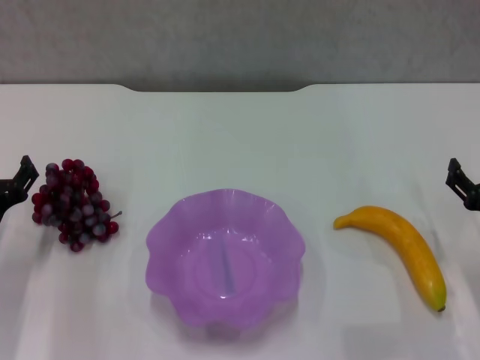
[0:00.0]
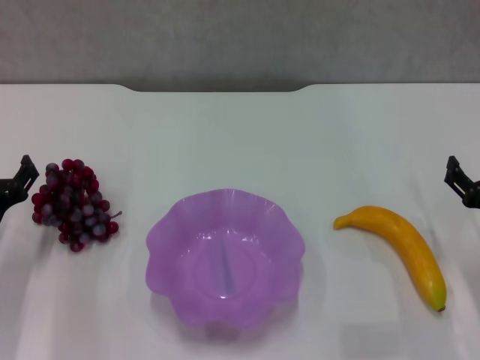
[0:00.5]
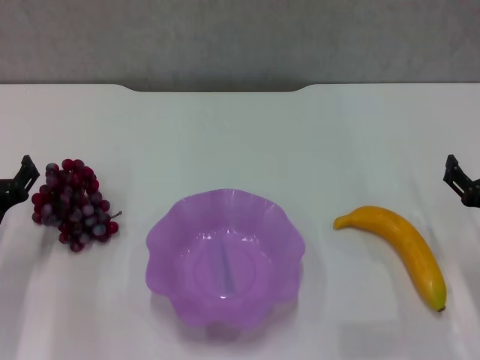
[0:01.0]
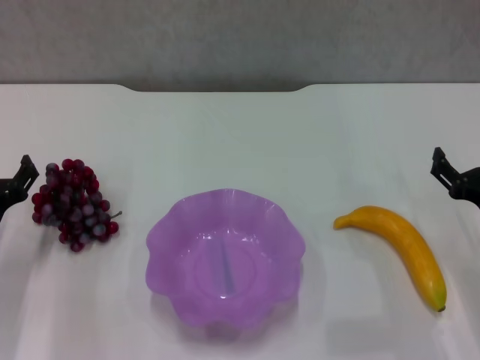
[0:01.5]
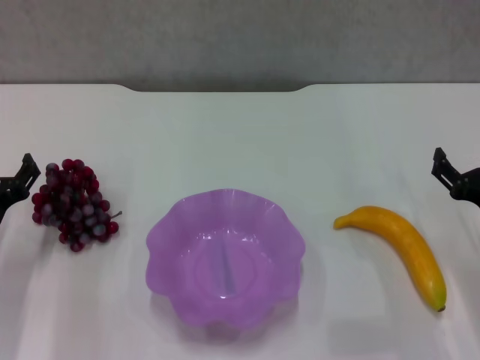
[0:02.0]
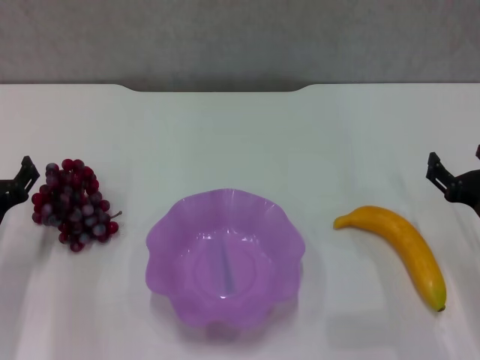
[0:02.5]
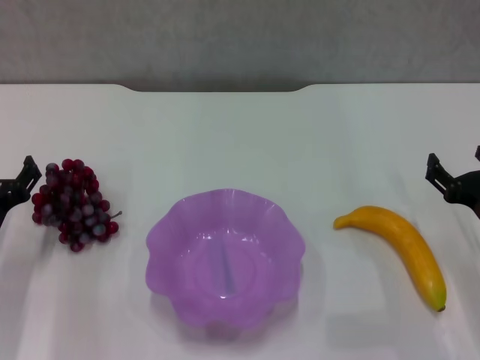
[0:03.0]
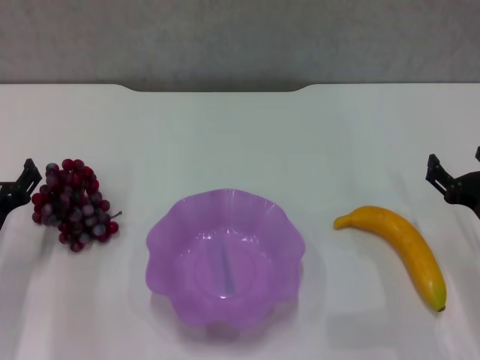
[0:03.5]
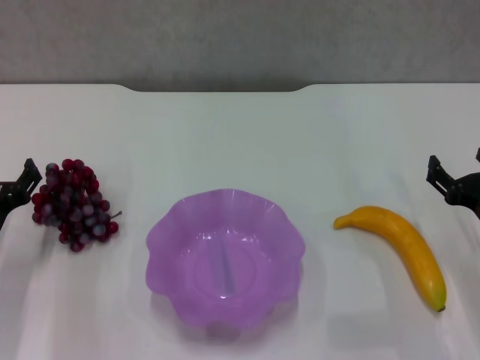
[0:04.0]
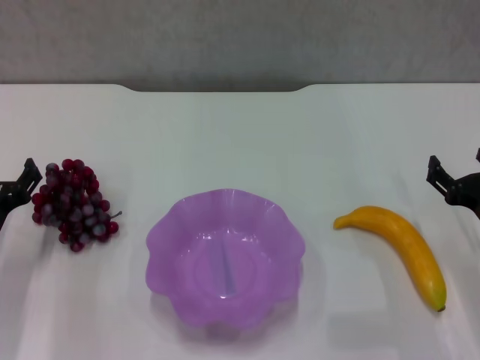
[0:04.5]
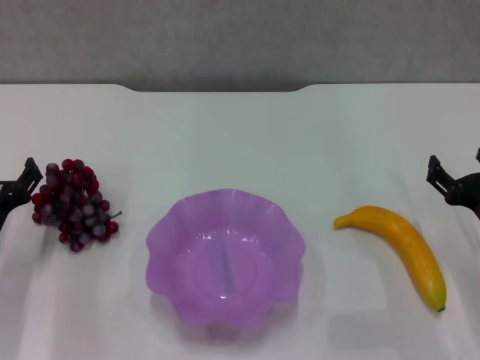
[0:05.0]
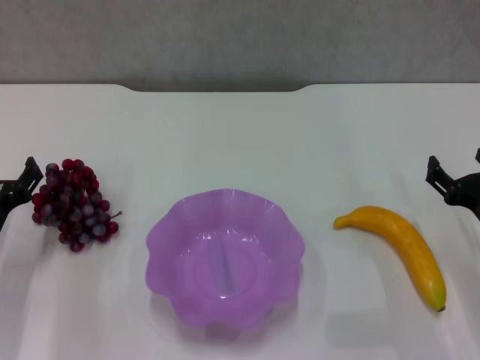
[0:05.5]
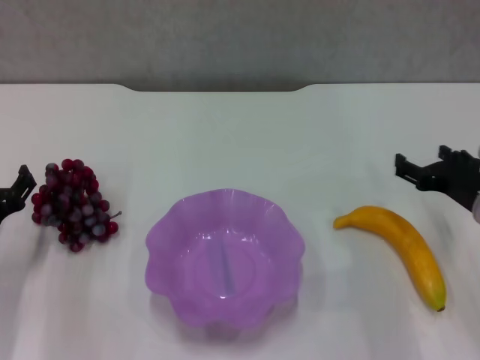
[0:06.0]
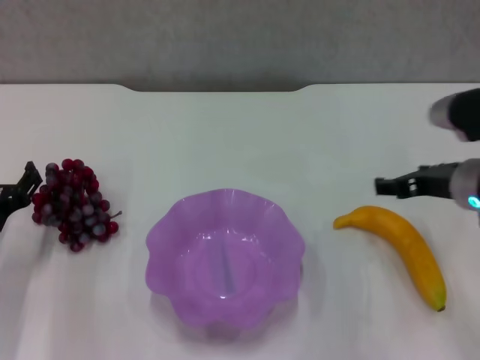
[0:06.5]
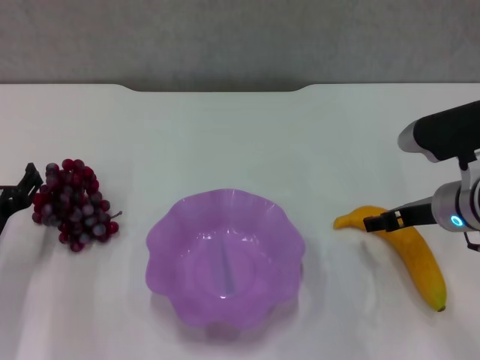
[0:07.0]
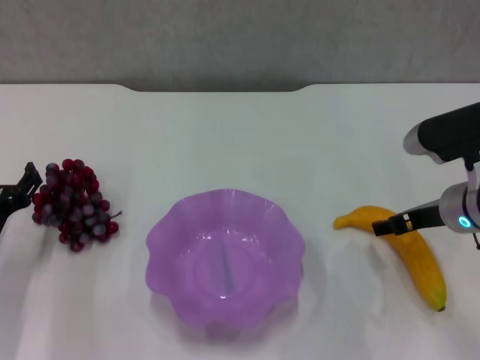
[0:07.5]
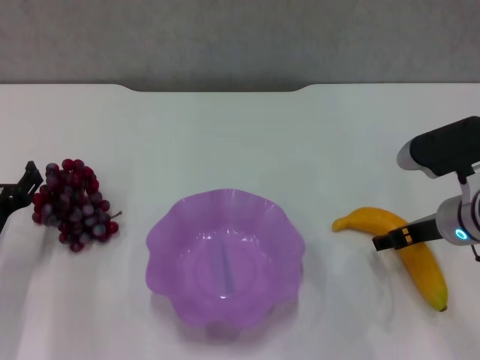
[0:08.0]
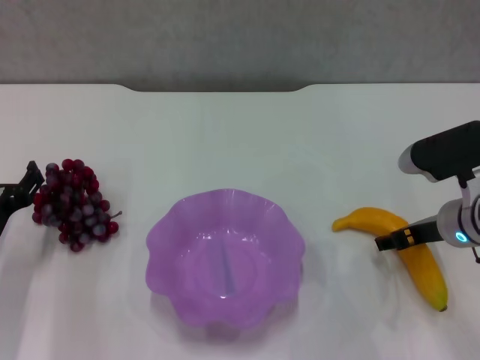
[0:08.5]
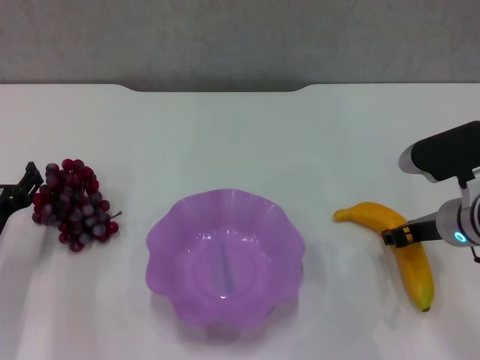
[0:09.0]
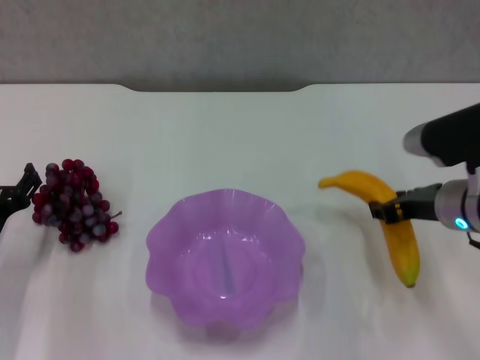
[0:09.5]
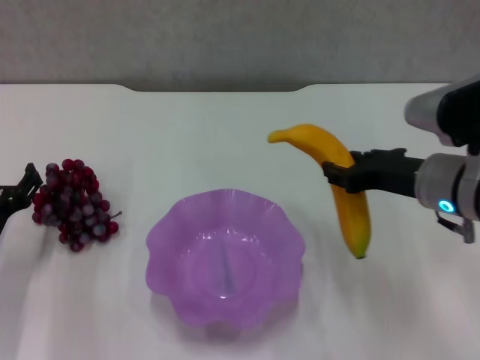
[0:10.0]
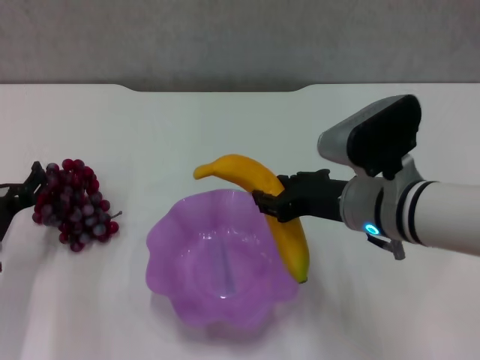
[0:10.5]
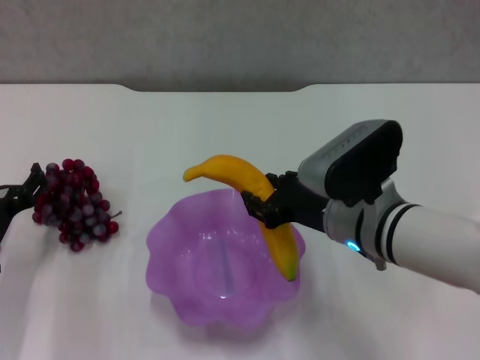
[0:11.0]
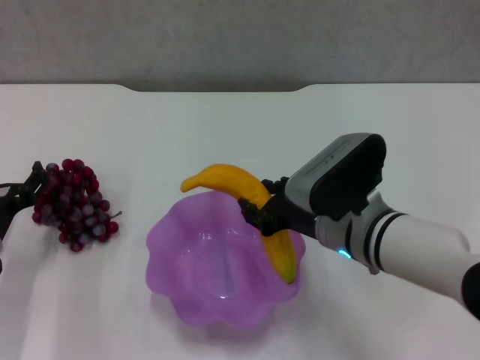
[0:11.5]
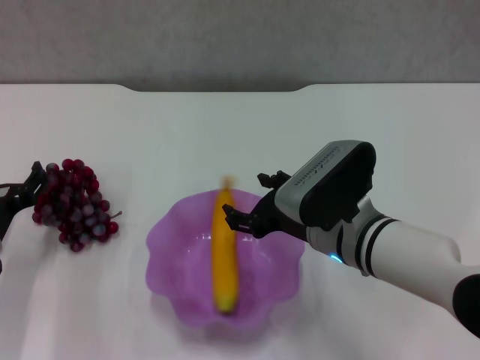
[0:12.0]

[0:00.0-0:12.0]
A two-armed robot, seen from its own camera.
Step, 0:00.0 to 0:09.0: Grasp the banana with right gripper.
Step, 0:09.5 to 0:12.0: Place the banana in the purple plate with right gripper.
0:00.0 to 0:02.0: The grippers make only small movements.
0:02.0 to 0:04.0: Neither gripper changes place.
0:04.0 to 0:06.0: The right gripper ends up some 5 cm from where it was.
0:08.0 to 0:10.0: The right gripper travels upward by roughly 5 cm, and closes.
0:10.0 to 0:12.0: The right gripper heads to the left and downward, covering roughly 10 cm, and opens its fingers.

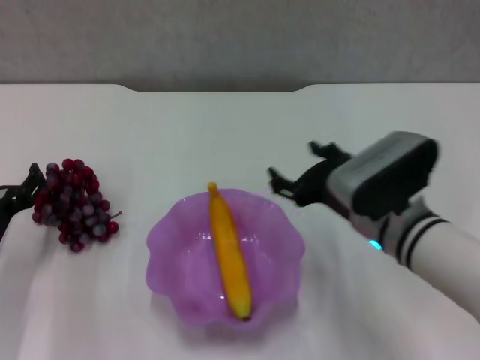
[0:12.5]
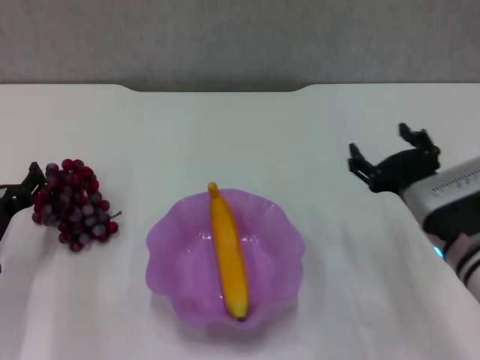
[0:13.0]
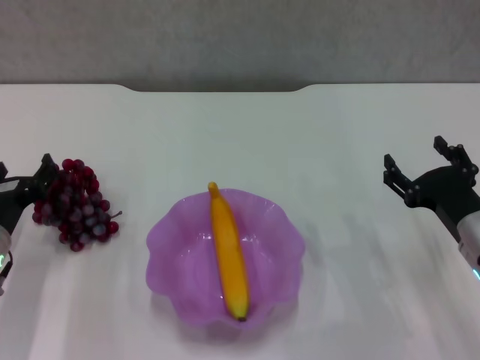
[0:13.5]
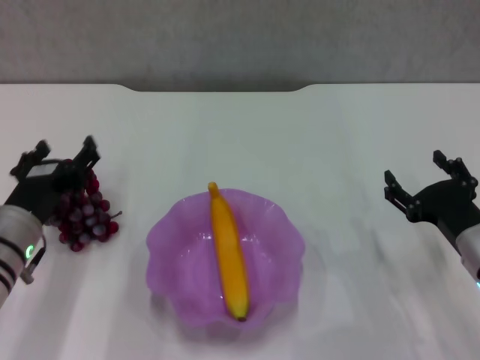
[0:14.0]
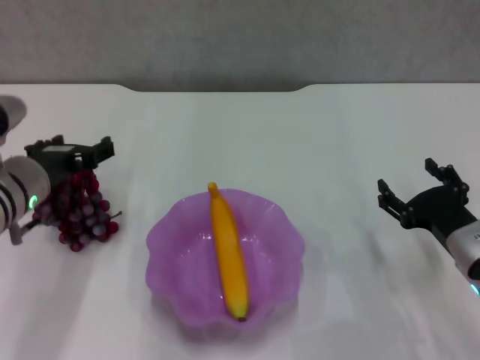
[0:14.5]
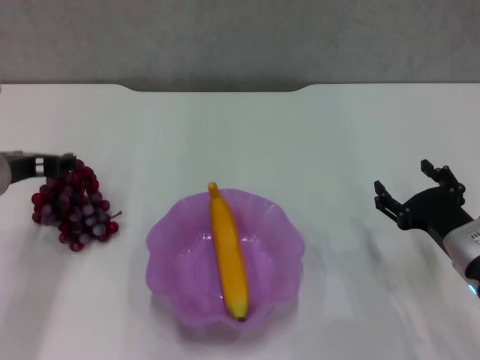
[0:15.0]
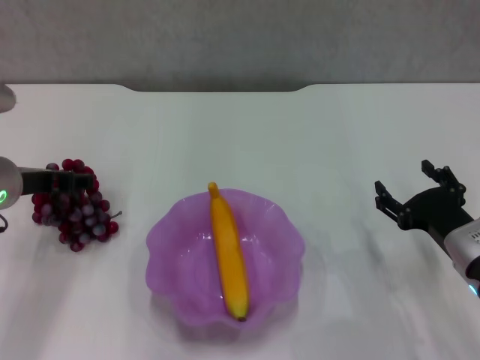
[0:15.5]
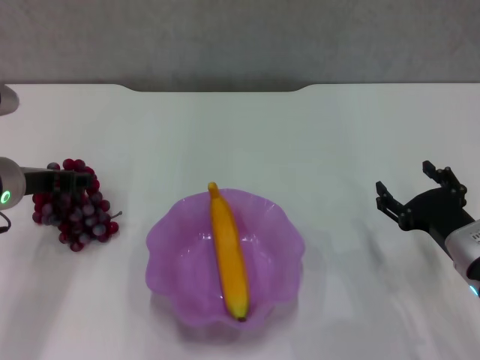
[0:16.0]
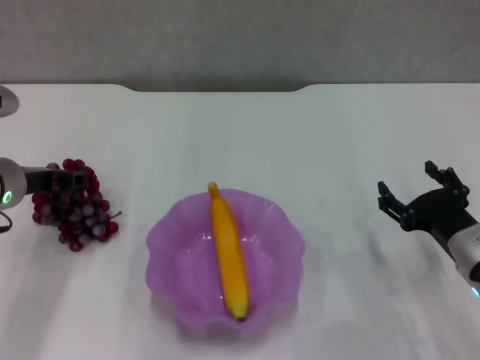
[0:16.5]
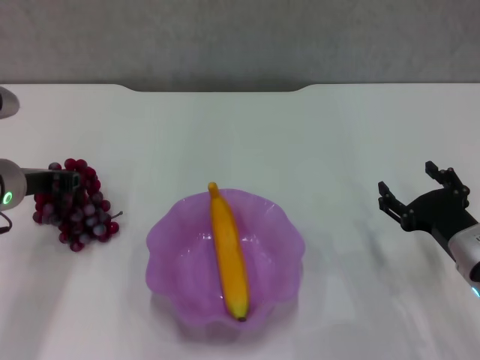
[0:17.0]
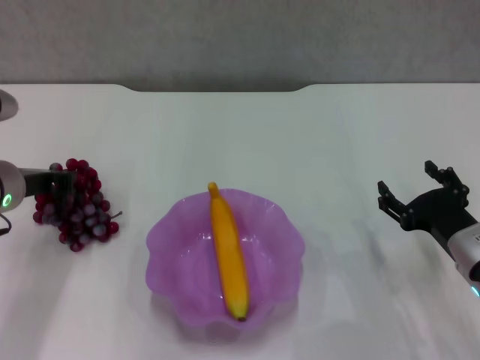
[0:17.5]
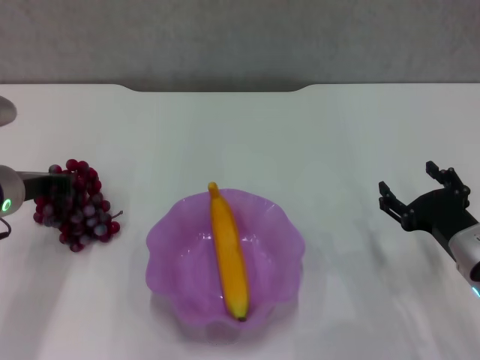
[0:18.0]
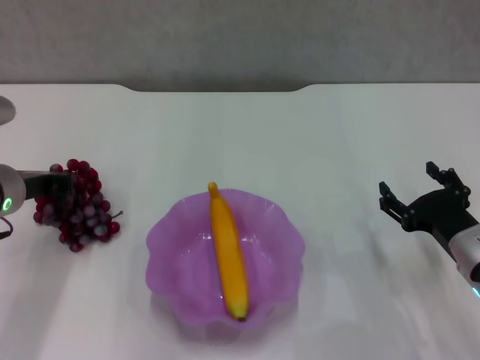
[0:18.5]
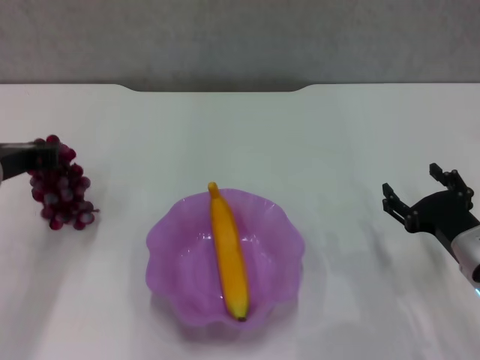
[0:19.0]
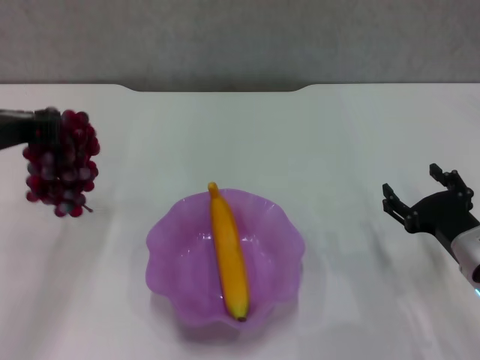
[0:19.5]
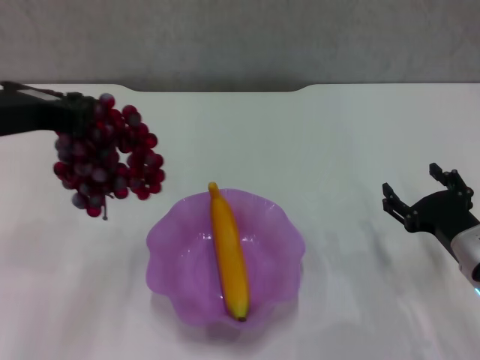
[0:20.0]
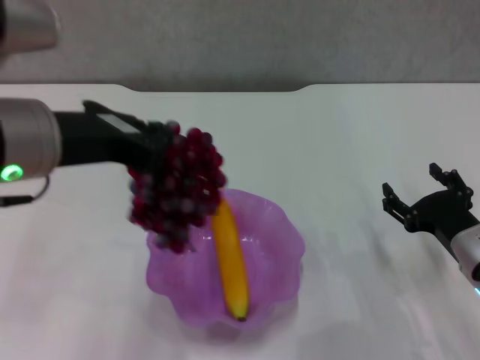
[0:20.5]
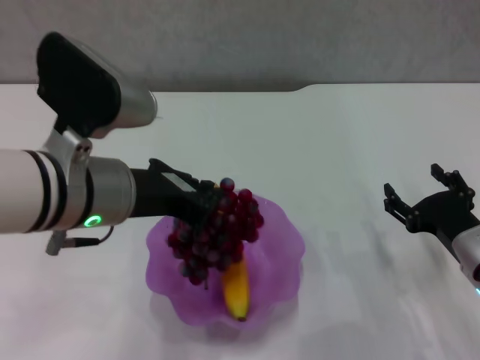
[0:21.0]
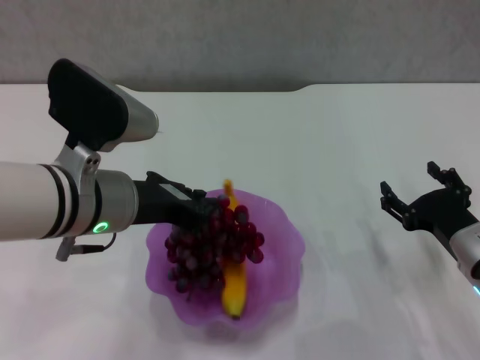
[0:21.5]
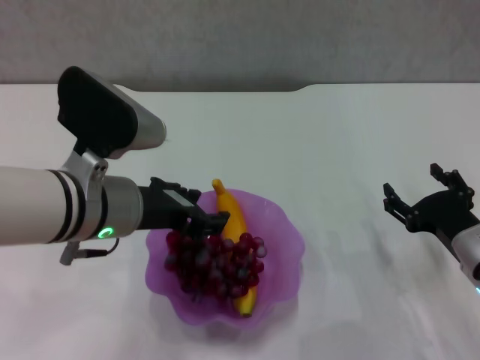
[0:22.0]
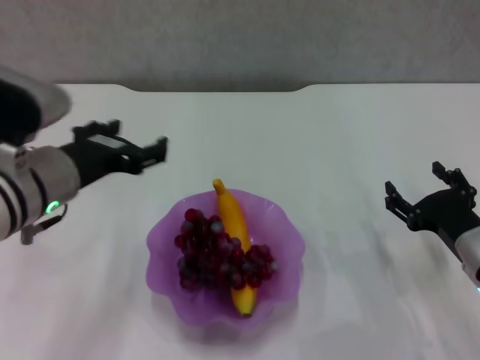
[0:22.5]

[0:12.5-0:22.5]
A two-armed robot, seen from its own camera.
Step, 0:12.5 to 0:18.0: Grasp the grape with left gripper.
Step, 0:18.5 to 0:22.0: Place the grape in the purple plate with left gripper.
0:12.5 to 0:14.5: The left gripper heads upward and to the right, covering roughly 10 cm; the right gripper travels to the right and downward by approximately 15 cm.
0:14.5 to 0:16.5: The grippers stay close to where they were, moving slightly.
0:16.5 to 0:18.5: The left gripper closes.
0:18.5 to 0:20.5: The left gripper goes about 20 cm upward, to the right and backward.
0:20.5 to 0:22.5: The left gripper moves downward, roughly 10 cm, and opens up.

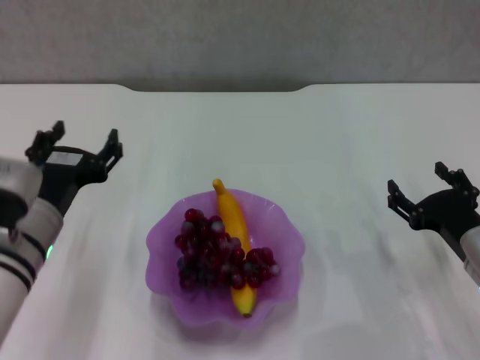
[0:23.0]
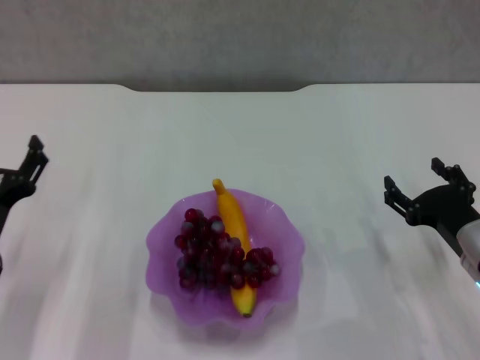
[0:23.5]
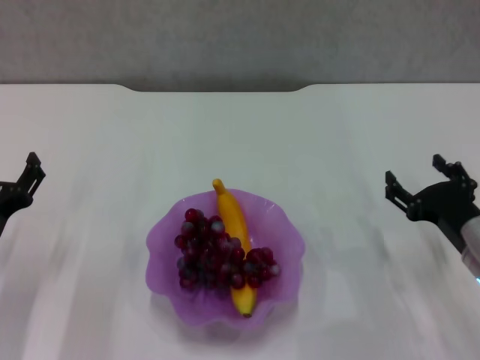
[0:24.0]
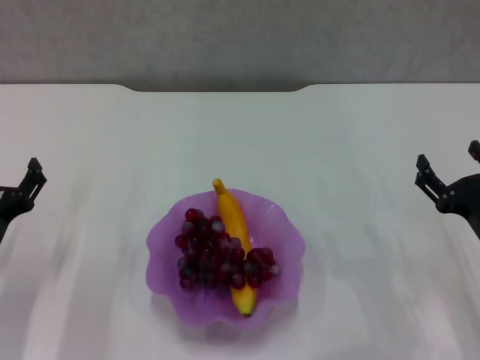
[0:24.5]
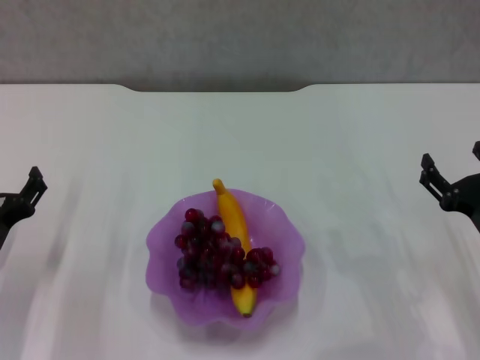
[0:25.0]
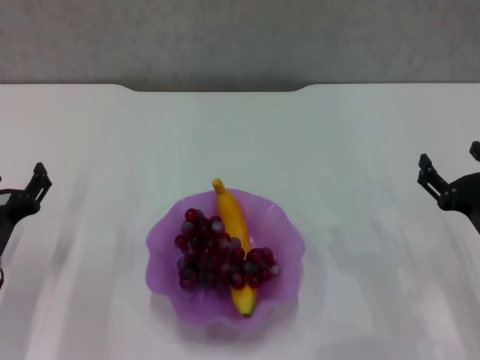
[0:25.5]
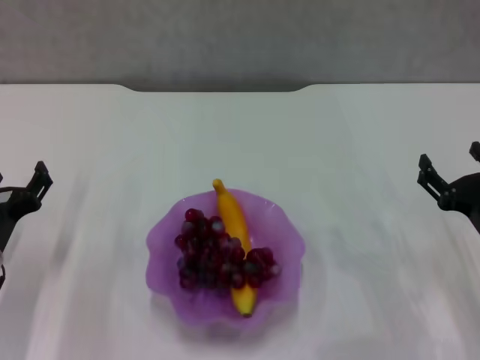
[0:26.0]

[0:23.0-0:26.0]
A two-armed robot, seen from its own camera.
0:23.0 to 0:24.5: The left gripper goes approximately 10 cm to the left and downward.
0:24.5 to 0:26.0: Both grippers stay put.
